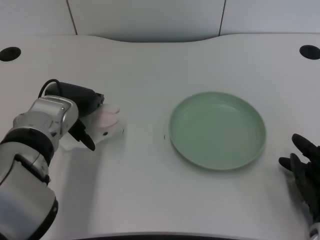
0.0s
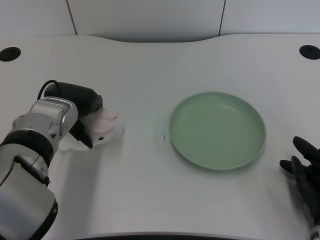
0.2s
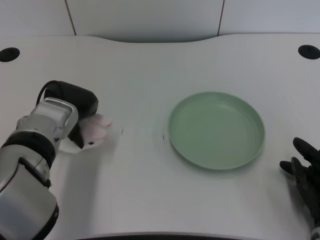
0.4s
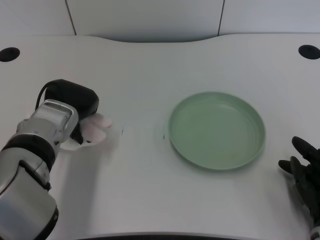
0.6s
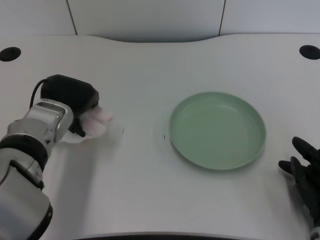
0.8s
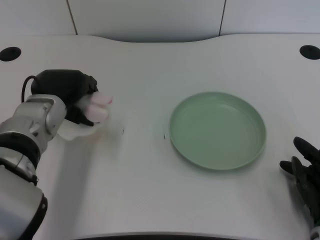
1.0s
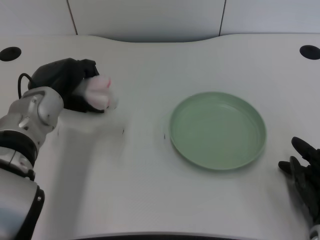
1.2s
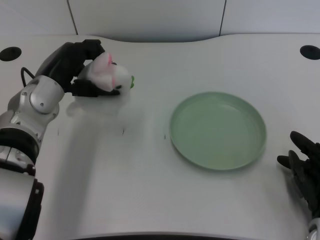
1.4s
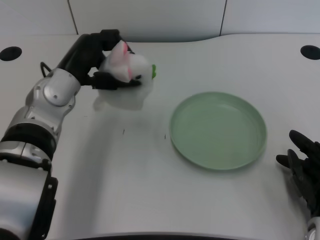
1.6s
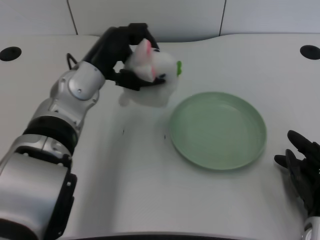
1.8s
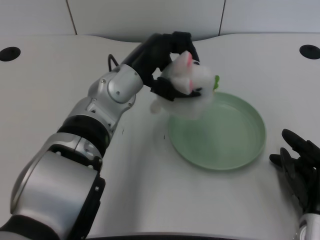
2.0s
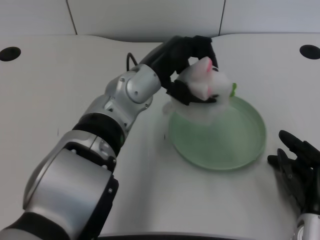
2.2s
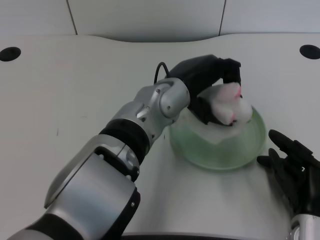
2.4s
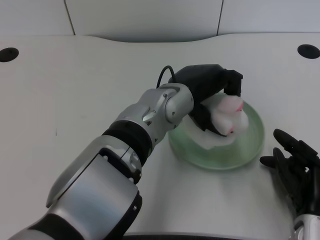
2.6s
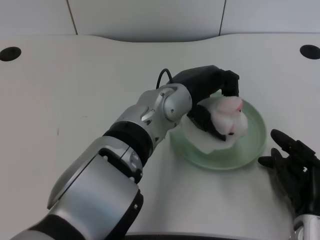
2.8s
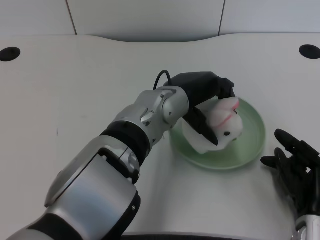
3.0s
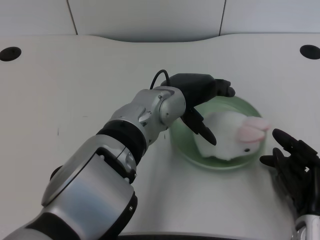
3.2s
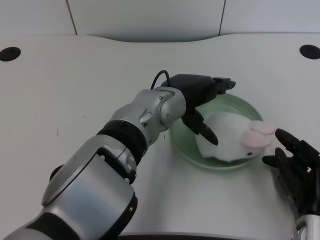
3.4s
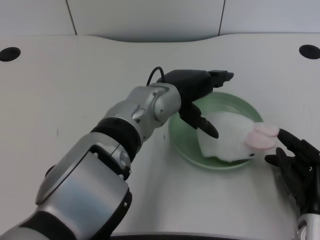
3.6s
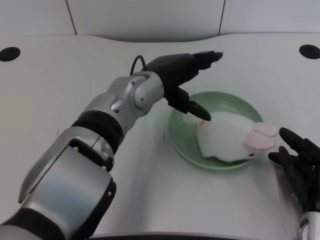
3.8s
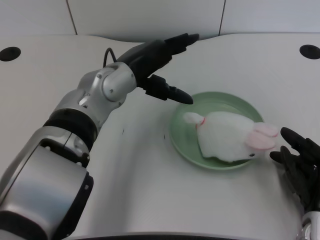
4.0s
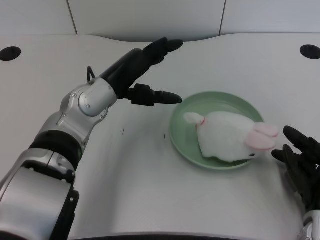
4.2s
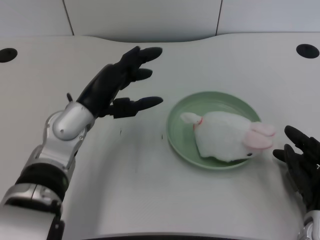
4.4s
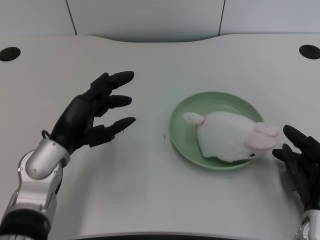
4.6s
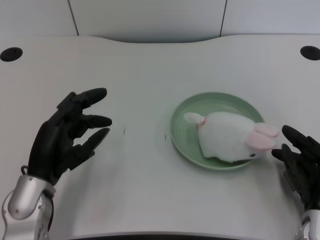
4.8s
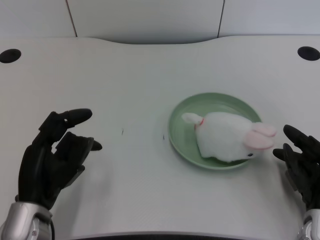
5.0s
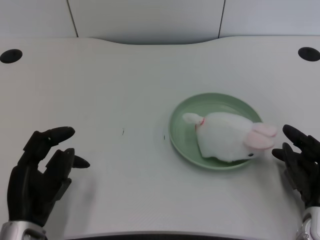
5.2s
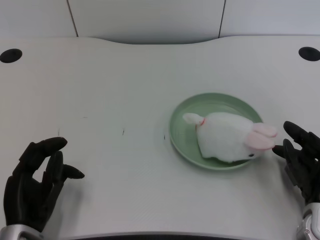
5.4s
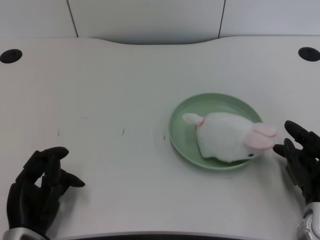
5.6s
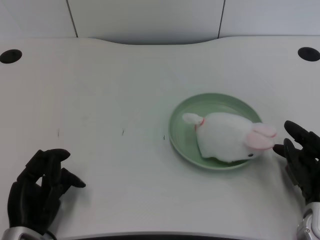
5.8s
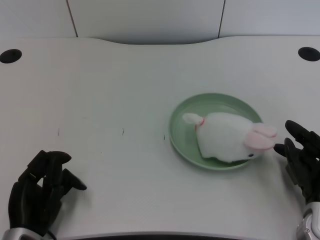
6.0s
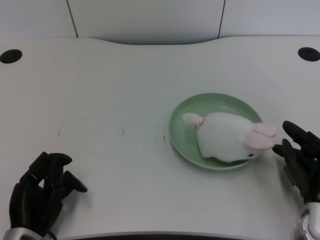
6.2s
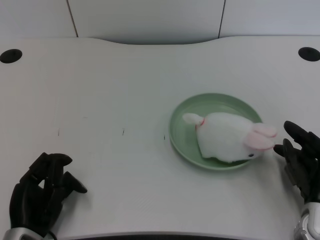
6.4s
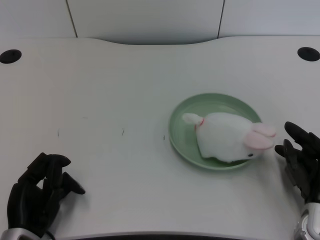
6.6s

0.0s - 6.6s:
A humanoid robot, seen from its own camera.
Task of the whole recording: pick up the rabbit doll from the table and place it on the plate.
Step, 1.0s - 3.0s: Place the rabbit doll into the plate with the left gripper.
1.6s - 3.2s: The left hand is displaced to the right by roughly 15 cm.
3.2s - 5.0s: The left hand heads to the left, backward and downward, covering approximately 25 cm.
5.0s - 6.6s: The left hand travels downward by some 5 cm.

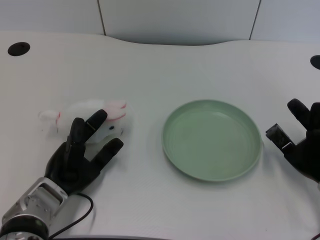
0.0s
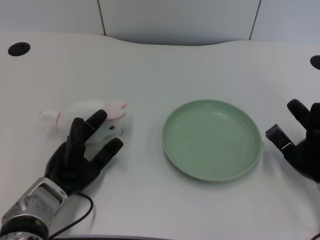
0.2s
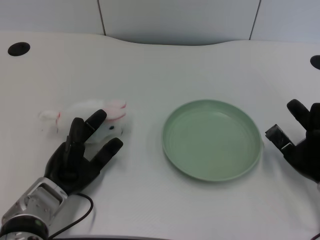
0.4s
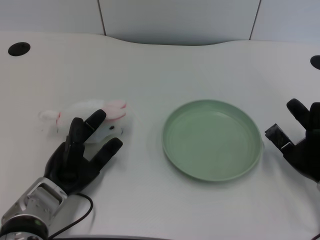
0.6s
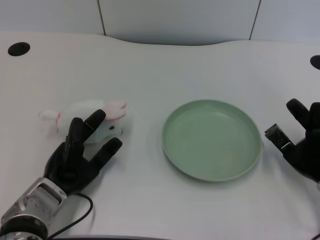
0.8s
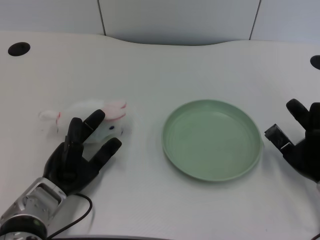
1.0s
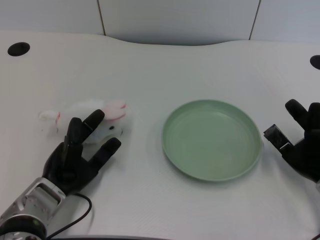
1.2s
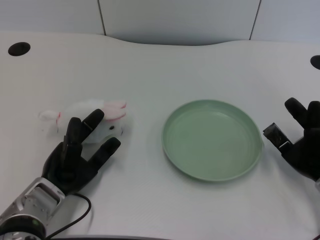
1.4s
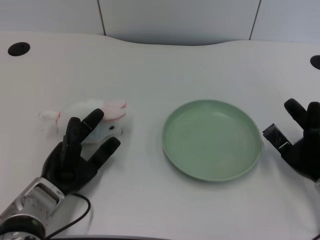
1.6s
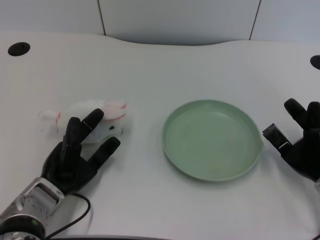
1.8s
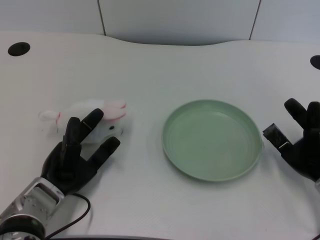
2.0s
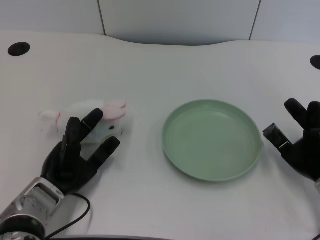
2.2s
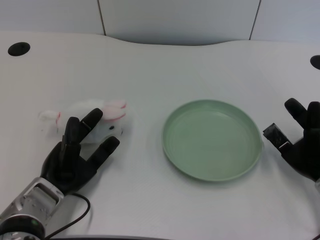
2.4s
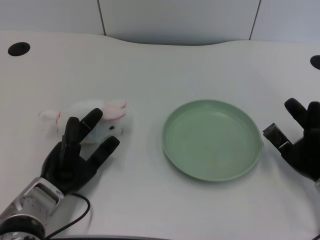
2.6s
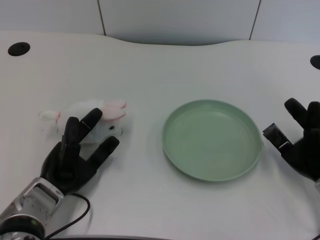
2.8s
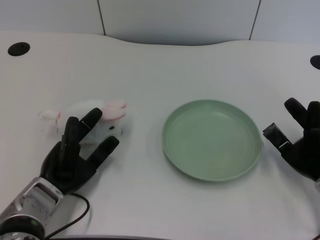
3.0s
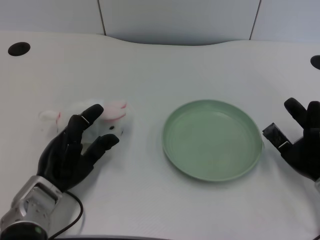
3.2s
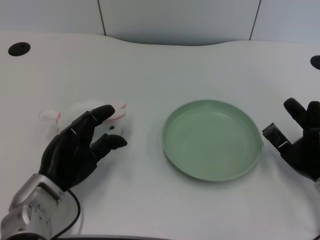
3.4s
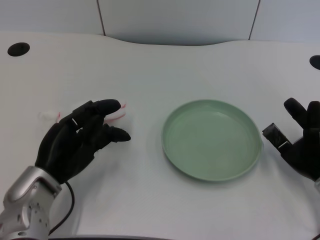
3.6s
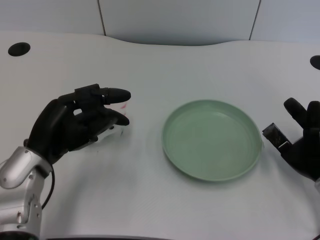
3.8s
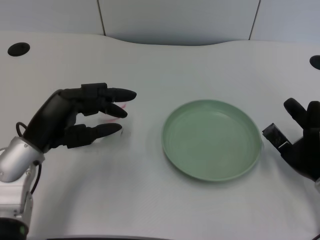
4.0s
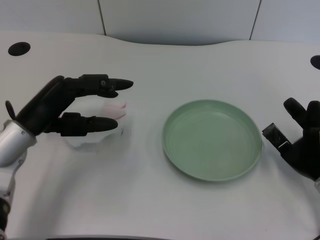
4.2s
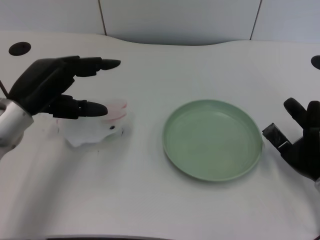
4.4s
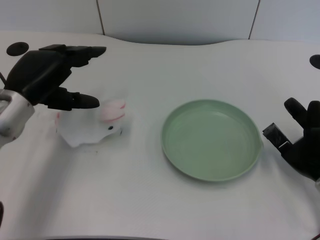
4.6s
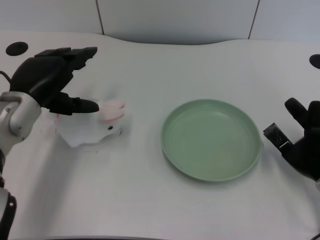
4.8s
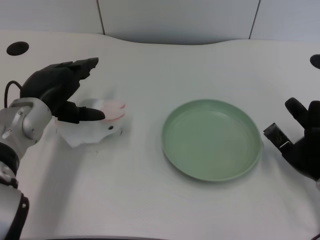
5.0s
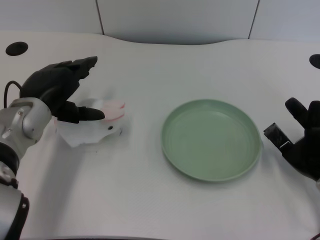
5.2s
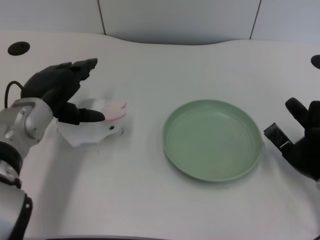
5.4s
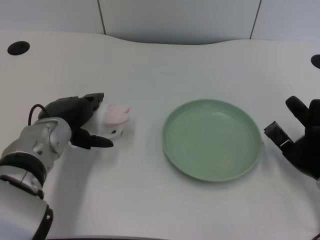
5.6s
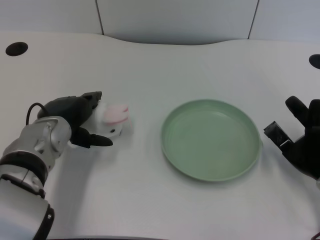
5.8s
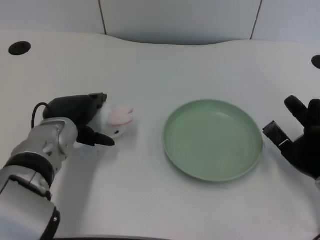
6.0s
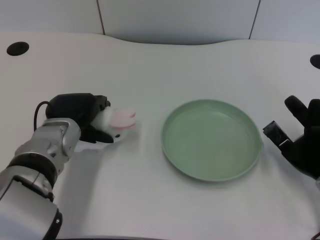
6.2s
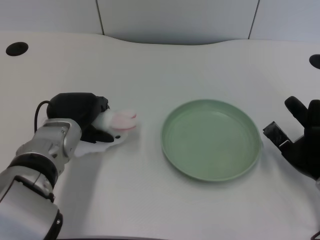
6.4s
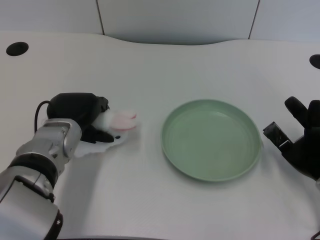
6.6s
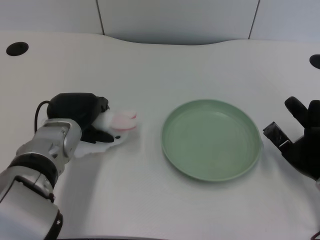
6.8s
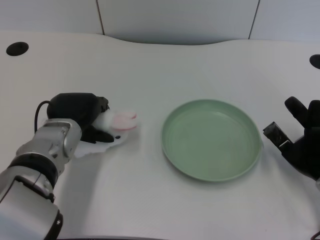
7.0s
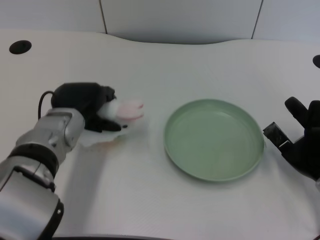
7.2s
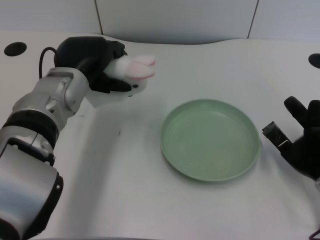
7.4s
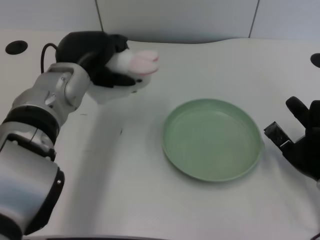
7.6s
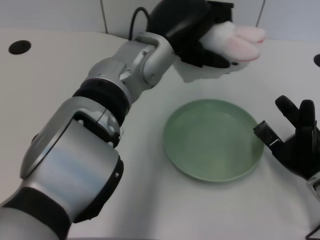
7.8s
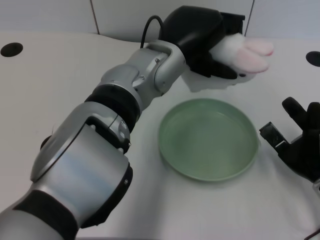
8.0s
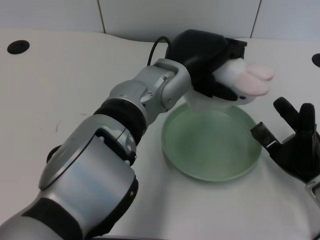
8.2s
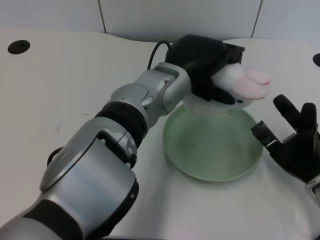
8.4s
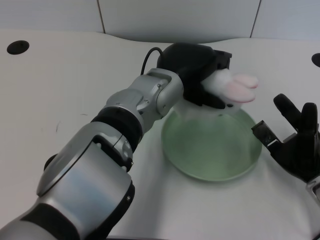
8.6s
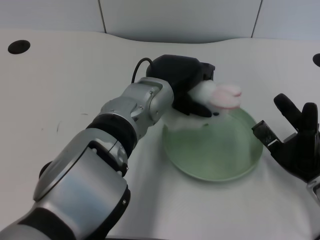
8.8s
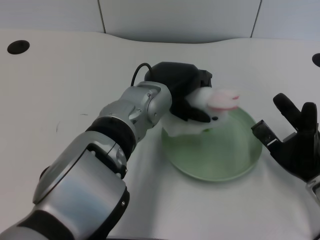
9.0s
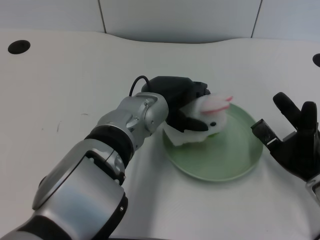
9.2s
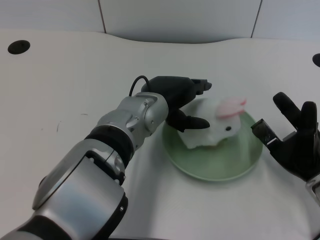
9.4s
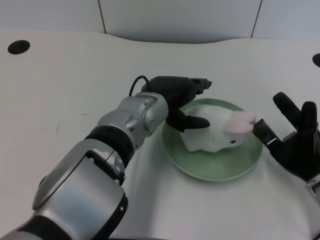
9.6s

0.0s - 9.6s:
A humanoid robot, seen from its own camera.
Task of the whole recording: pick up the rabbit doll from the table and place it on the plate.
Step, 3.2s - 7.2s: Grasp the rabbit doll with the left gripper.
Step, 7.4s - 9.4s: Place the rabbit doll into the plate with the left gripper.
1.6s - 3.2s: The hands move only a little.
3.2s - 4.8s: The left hand heads upward and forward, covering roughly 15 cm.
4.8s - 6.4s: The left hand goes about 5 cm to the right.
6.4s - 8.0s: The left hand travels to the right and upward by roughly 20 cm.
8.0s - 9.6s: The left hand is displaced downward by some 5 cm.

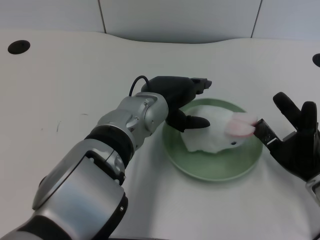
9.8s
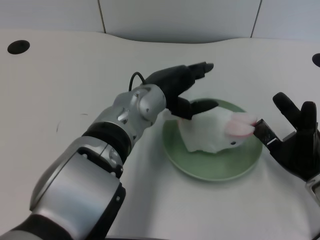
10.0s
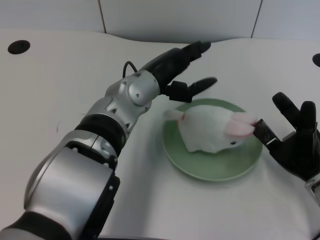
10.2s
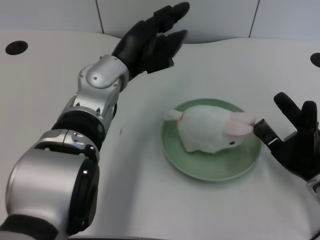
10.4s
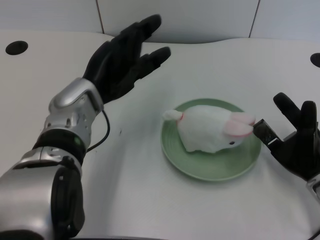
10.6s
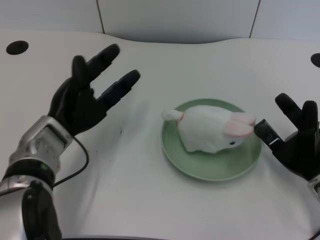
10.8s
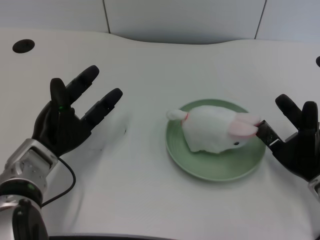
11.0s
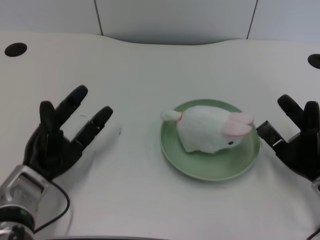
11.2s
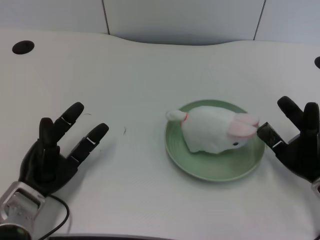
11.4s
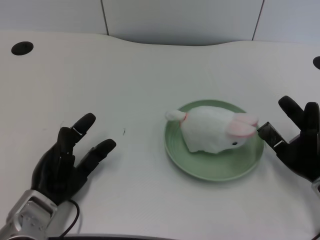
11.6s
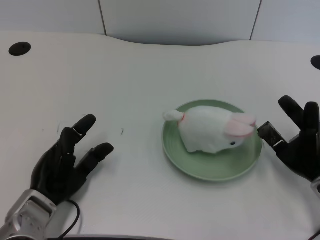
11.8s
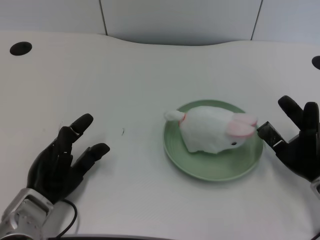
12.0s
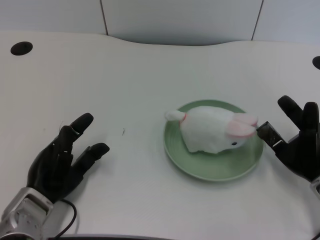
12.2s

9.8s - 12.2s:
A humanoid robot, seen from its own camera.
Task of the whole recording: pick up the rabbit doll from the table and place it on the plate.
9.8s - 11.0s: The left hand travels to the left and downward by approximately 20 cm.
11.0s - 12.2s: The left hand travels backward by about 5 cm.
